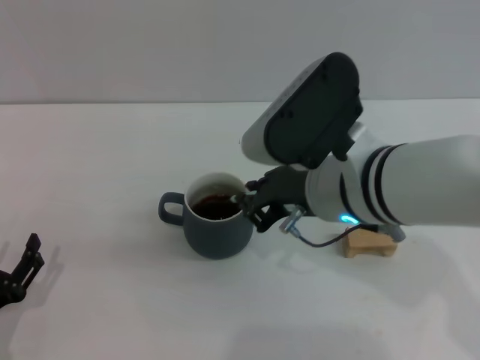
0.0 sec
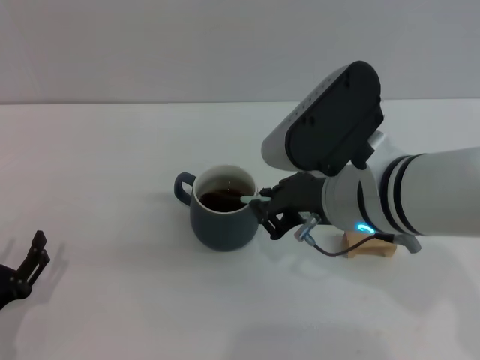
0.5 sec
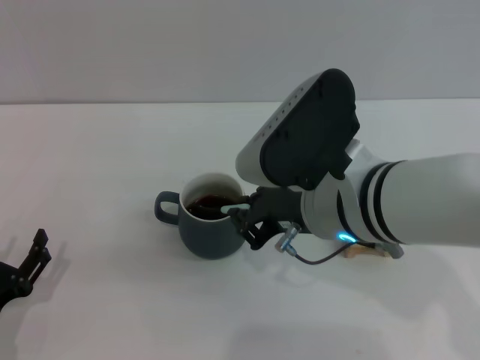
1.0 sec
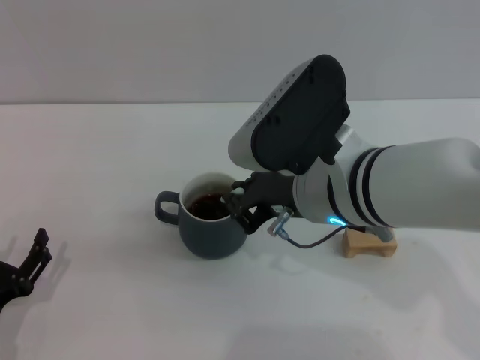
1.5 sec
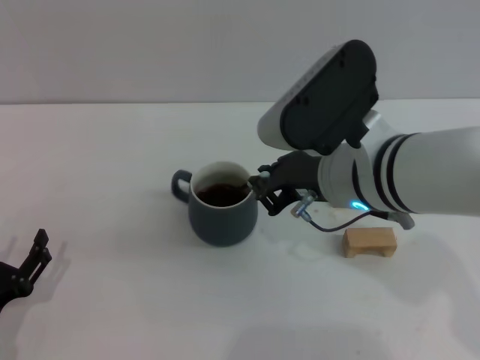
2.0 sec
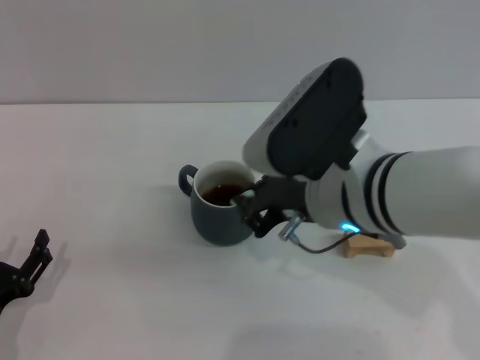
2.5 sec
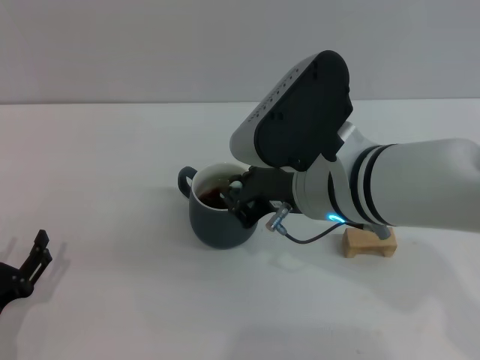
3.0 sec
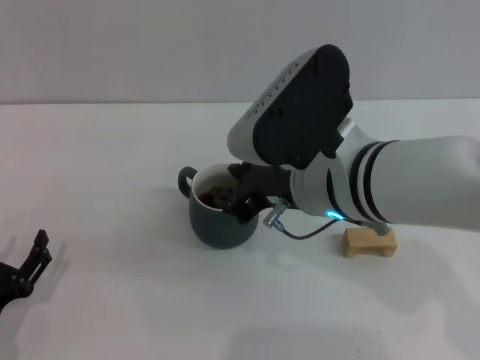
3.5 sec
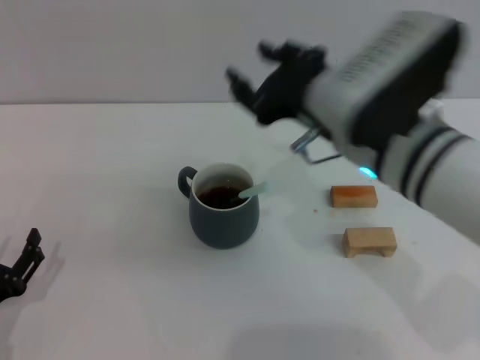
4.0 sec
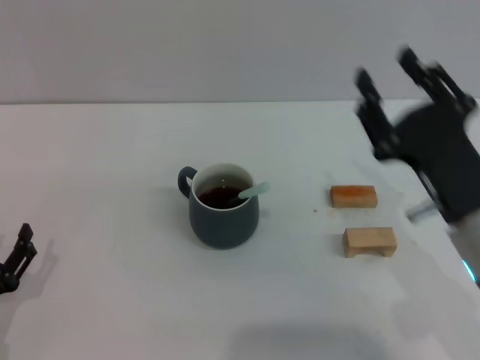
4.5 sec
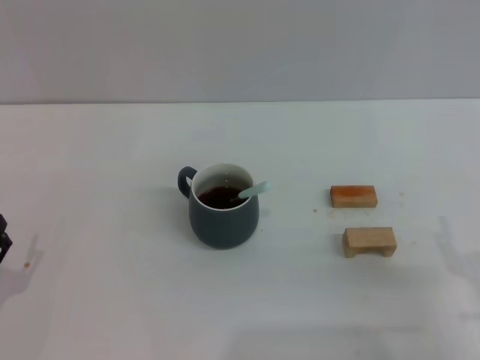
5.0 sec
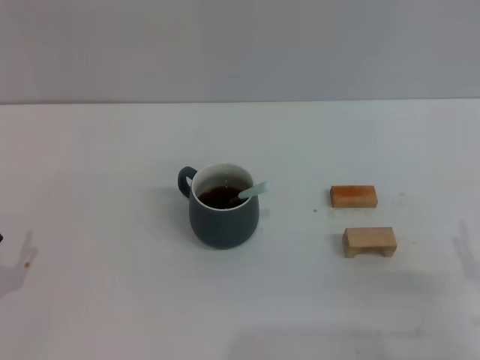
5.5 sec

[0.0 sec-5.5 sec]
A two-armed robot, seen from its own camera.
Task of the whole recording: Move the grey cup to the center, lift the blue spoon, stir it three times in the cup, and put the spoon into the cup.
Step, 0.0 sec to 3.5 sec: Stir the coffee in the cup with the right gripper.
0.0 sec to 3.5 sec: There are only small adjustments of the grippers.
3.5 sec to 5.5 sec: The right gripper travels to the right, downward and backward by some 30 cm, and opens its fingers.
